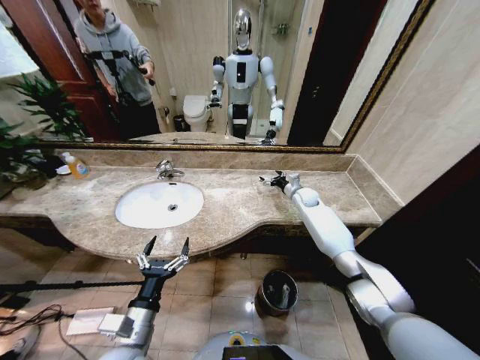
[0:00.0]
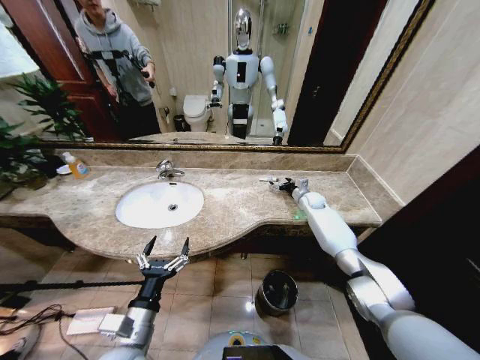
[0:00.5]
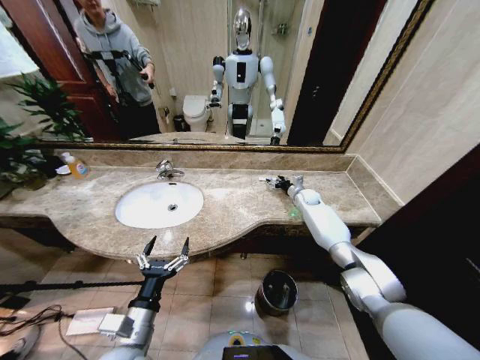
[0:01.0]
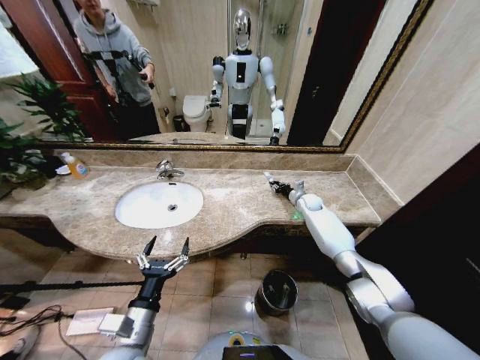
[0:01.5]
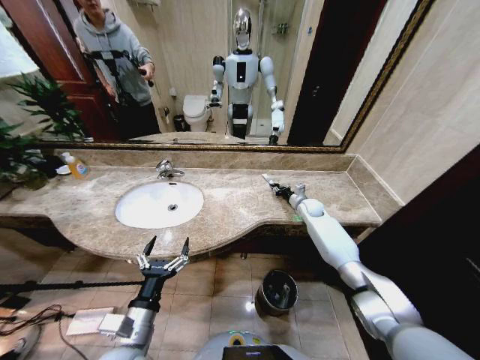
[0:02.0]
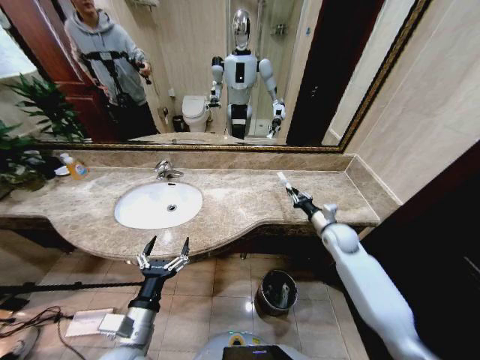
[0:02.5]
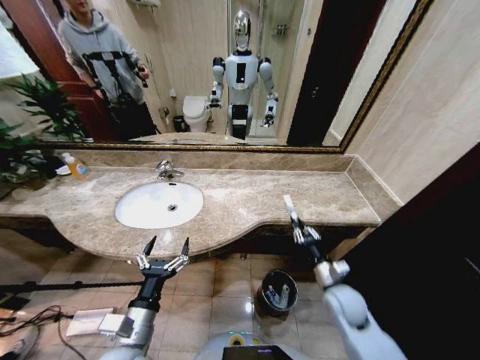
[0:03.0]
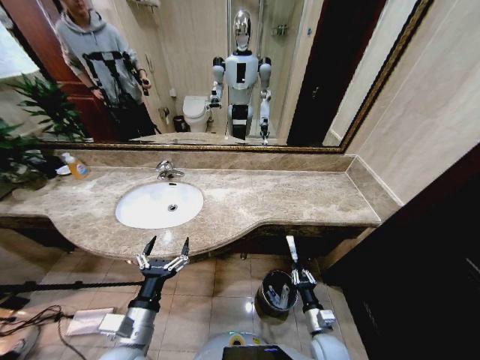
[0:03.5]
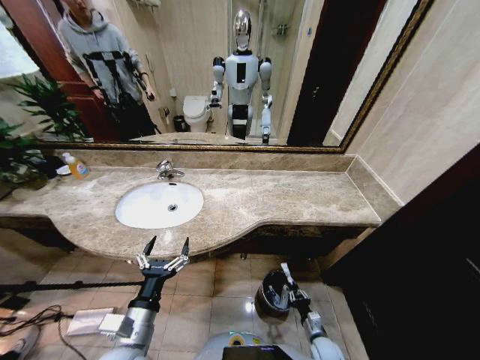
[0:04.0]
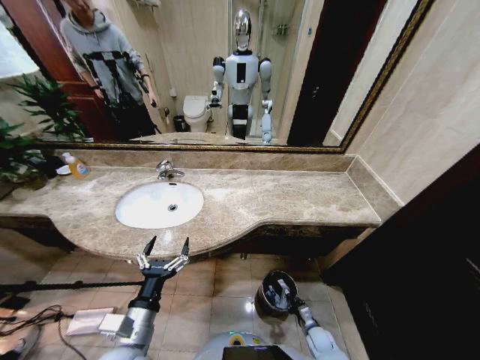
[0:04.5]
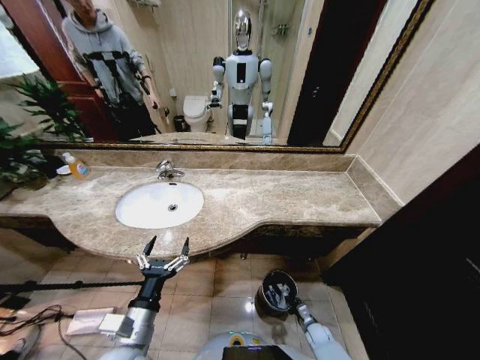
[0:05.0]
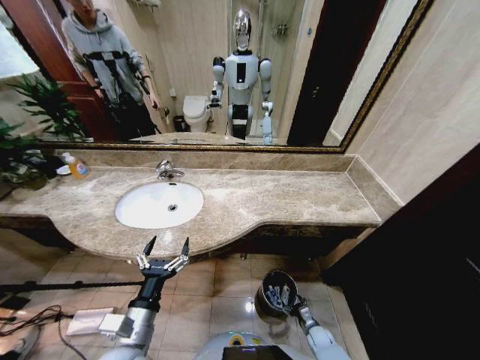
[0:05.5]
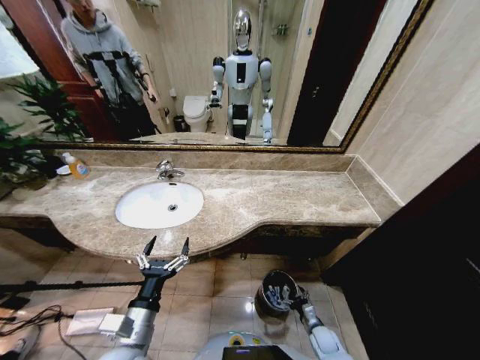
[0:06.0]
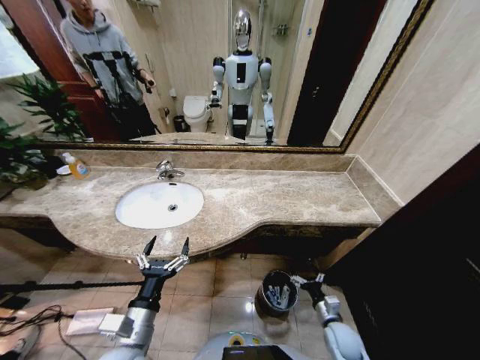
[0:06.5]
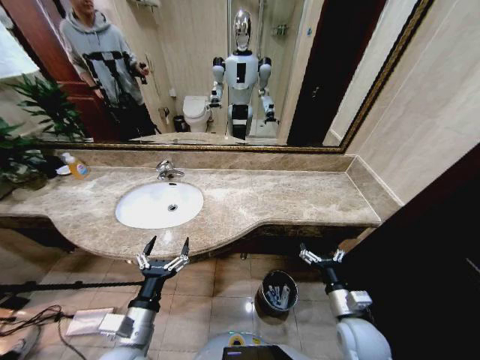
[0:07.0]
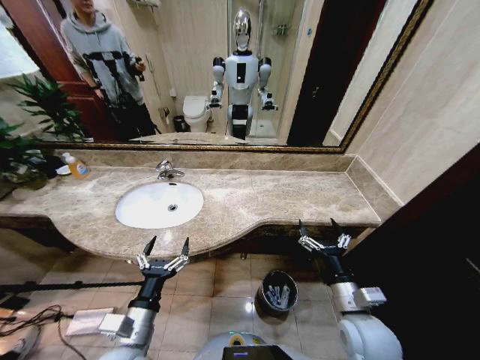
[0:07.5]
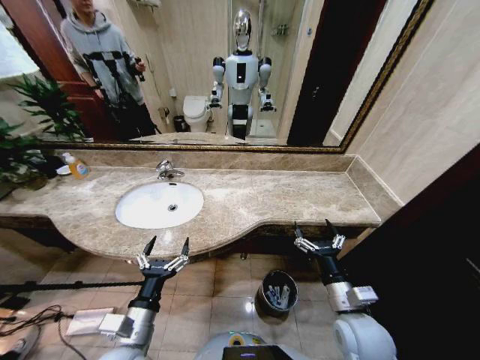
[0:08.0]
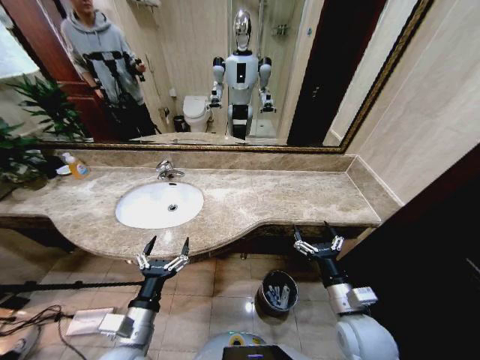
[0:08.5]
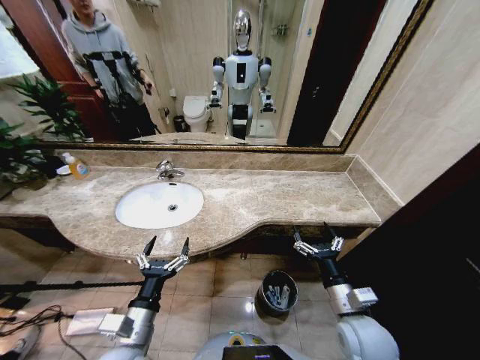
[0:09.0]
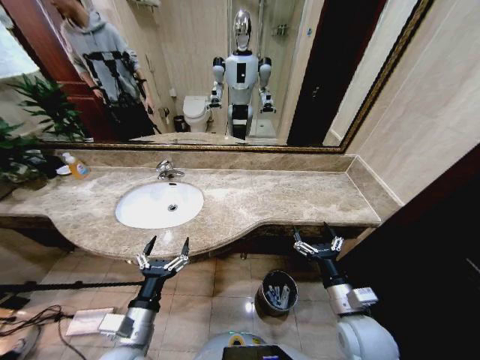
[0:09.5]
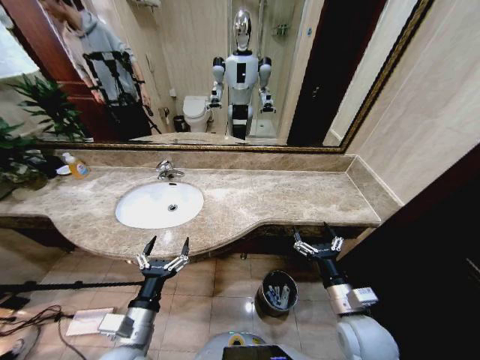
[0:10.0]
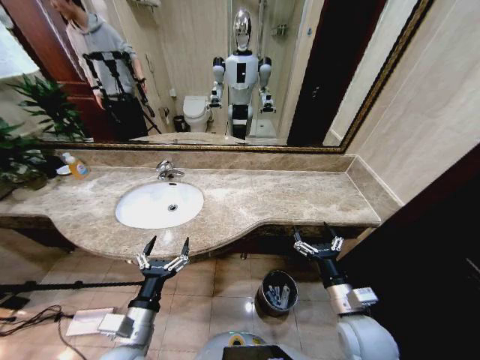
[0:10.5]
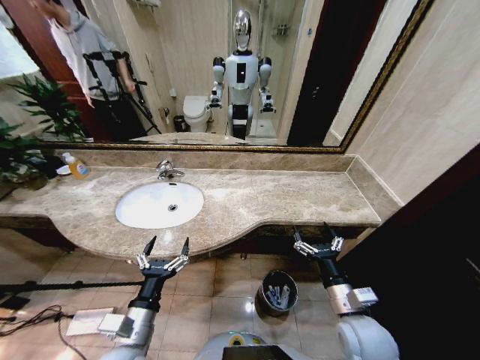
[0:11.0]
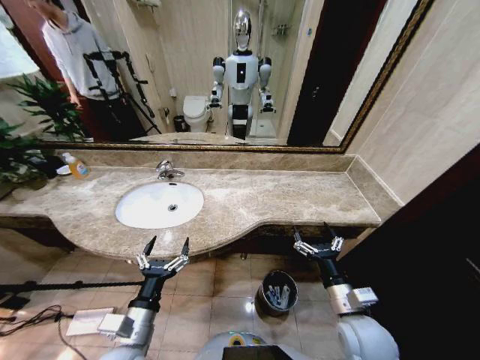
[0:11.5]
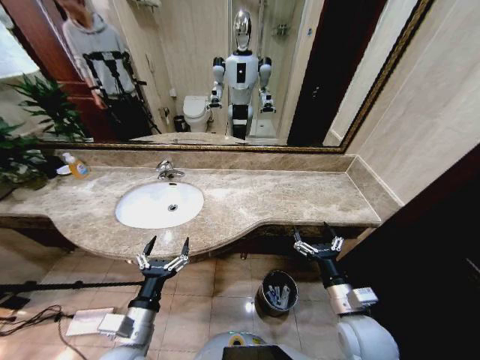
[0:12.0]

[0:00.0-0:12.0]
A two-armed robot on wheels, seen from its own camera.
Task of the whole recording: Pick up the trash from the sink and place it in the trash bin.
0:00.0 to 0:02.0: The right gripper shifts by roughly 5 cm, and closes up.
0:02.0 to 0:04.0: The right gripper travels backward and downward by roughly 50 cm.
0:04.0 to 0:06.0: The right gripper opens up.
0:06.0 to 0:08.0: The right gripper goes roughly 35 cm upward.
0:08.0 to 0:12.0: Neither gripper changes place.

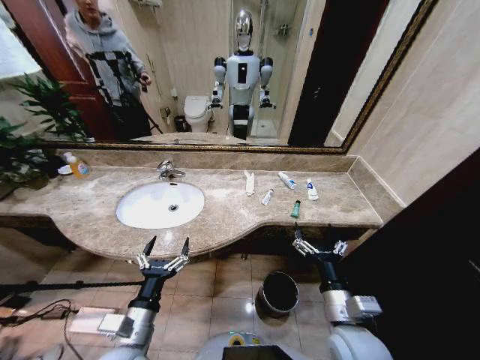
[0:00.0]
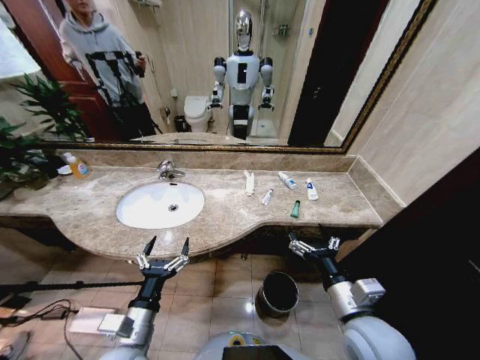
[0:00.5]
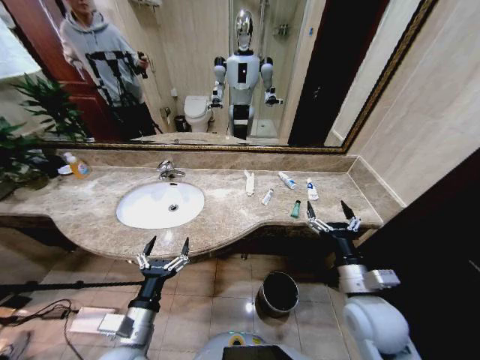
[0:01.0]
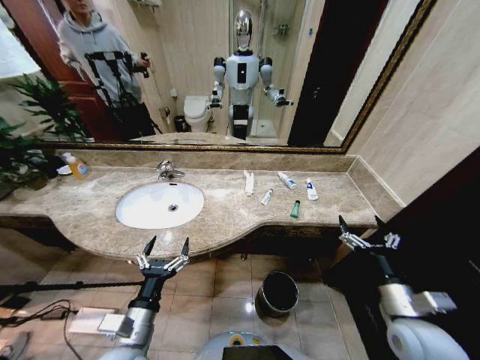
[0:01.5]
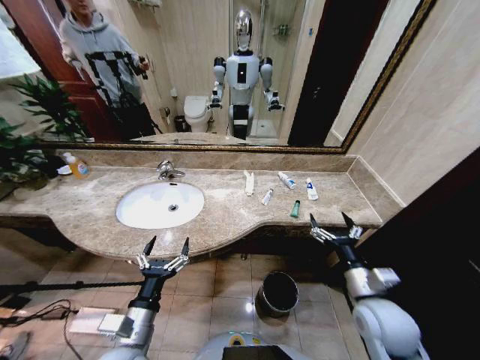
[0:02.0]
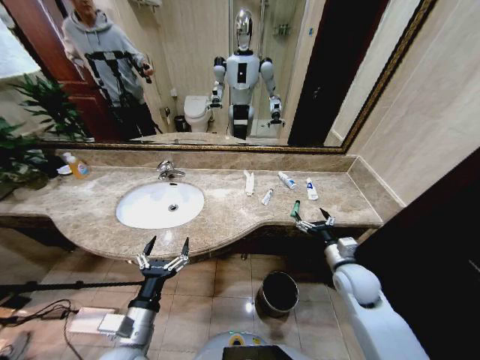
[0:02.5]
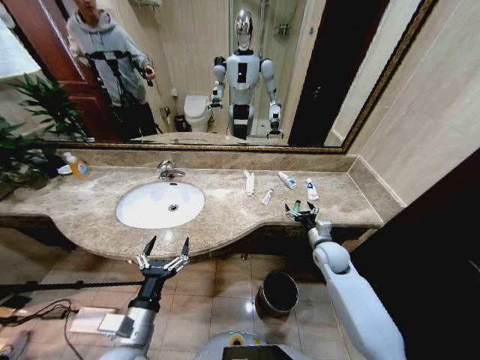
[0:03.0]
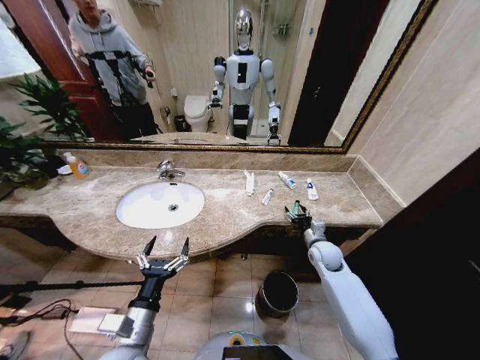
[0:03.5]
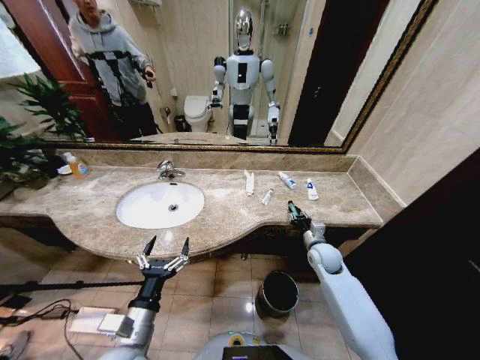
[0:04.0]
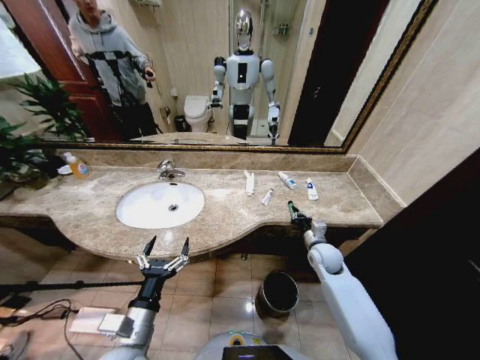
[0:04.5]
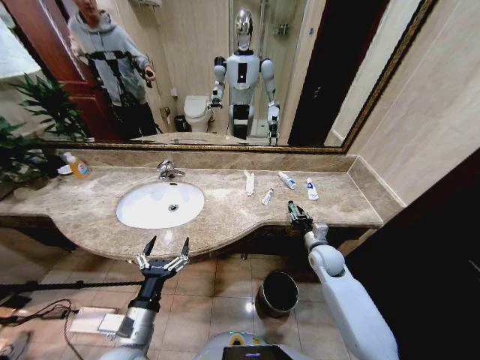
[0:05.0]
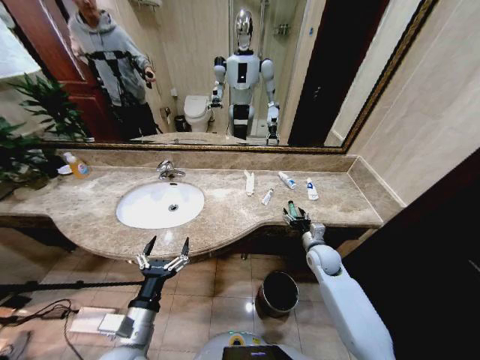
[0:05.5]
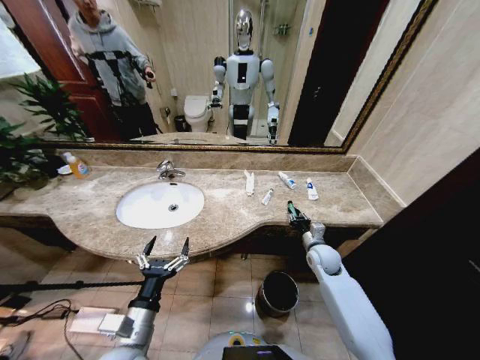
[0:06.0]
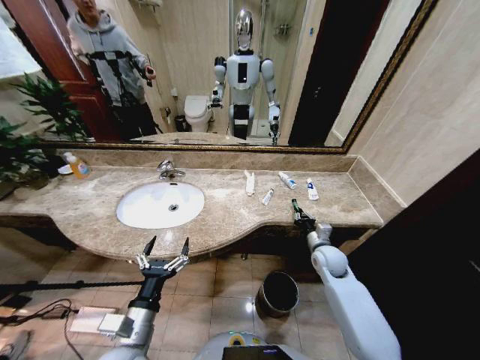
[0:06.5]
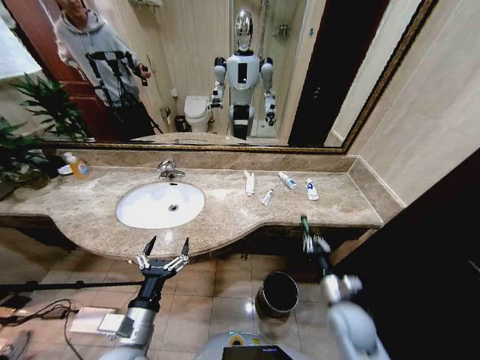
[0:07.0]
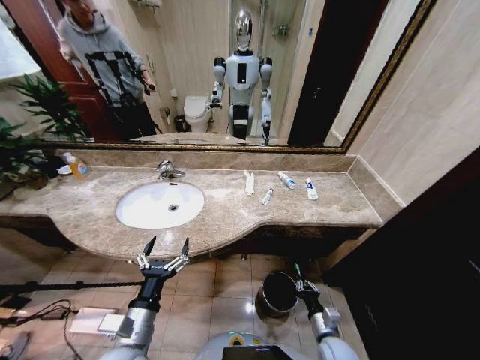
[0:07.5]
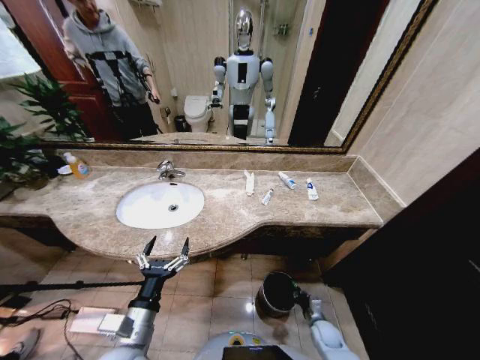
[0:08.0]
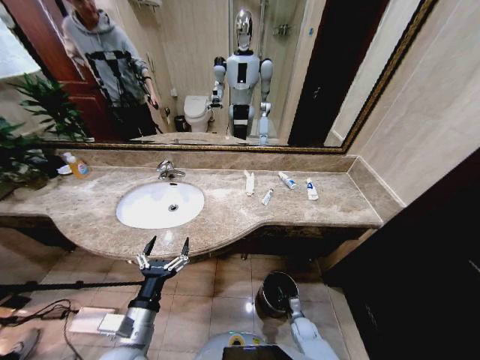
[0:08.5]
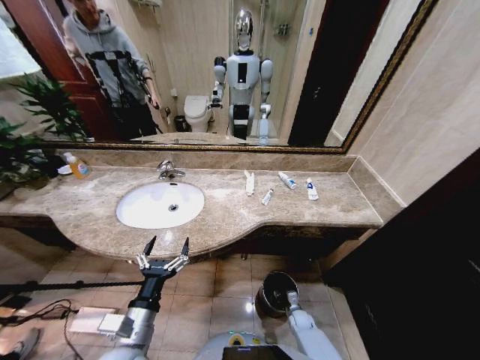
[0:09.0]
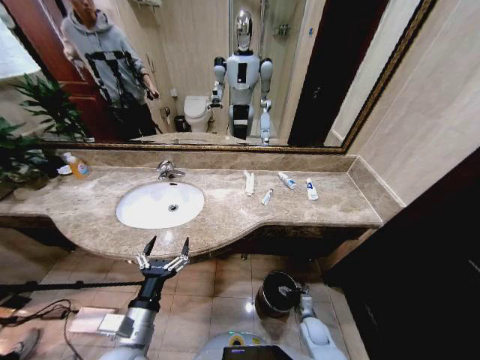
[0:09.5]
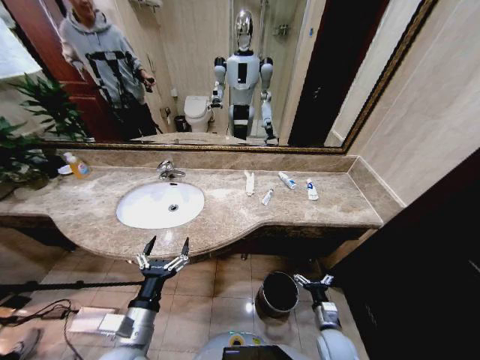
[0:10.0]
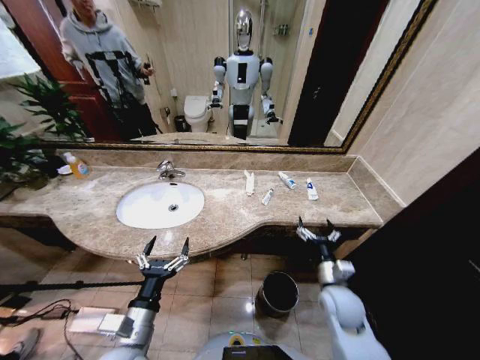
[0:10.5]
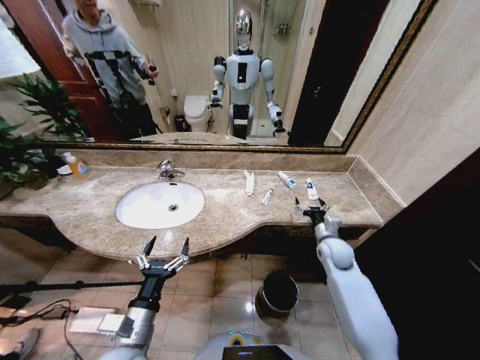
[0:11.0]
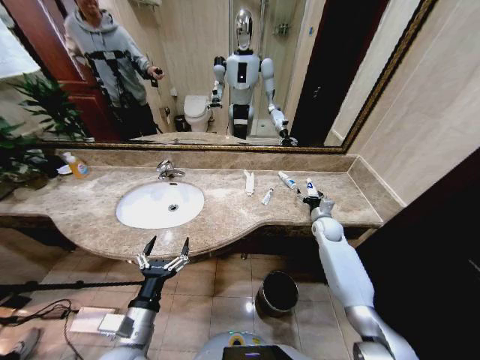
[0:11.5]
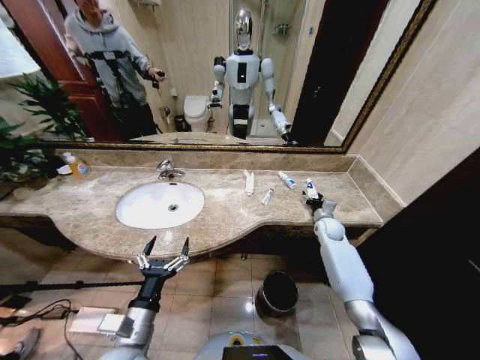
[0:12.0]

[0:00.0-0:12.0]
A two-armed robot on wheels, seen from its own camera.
Task of the whole recording: Pick up the trash from the sink and place it in the trash bin.
0:02.0 to 0:04.0: The right gripper heads forward and downward, covering approximately 20 cm, and closes its fingers.
0:04.0 to 0:06.0: The right gripper opens, then closes again.
0:06.0 to 0:08.0: The right gripper goes approximately 30 cm downward and backward.
0:08.0 to 0:10.0: The right gripper is displaced upward by roughly 10 cm, and opens.
0:10.0 to 0:12.0: The right gripper moves forward and upward, approximately 35 cm.

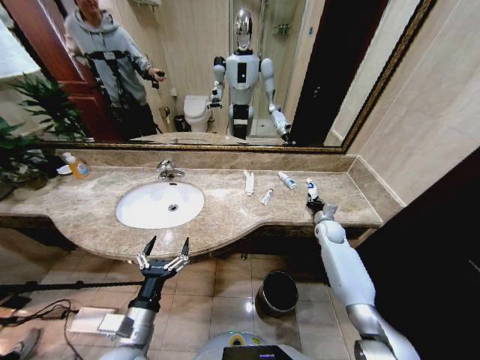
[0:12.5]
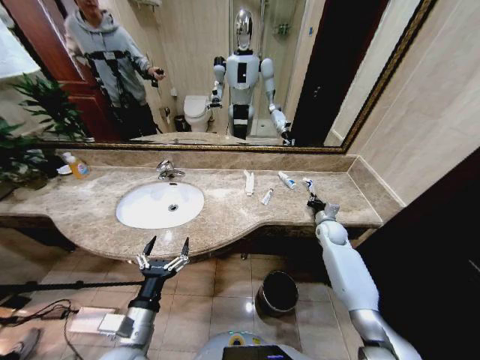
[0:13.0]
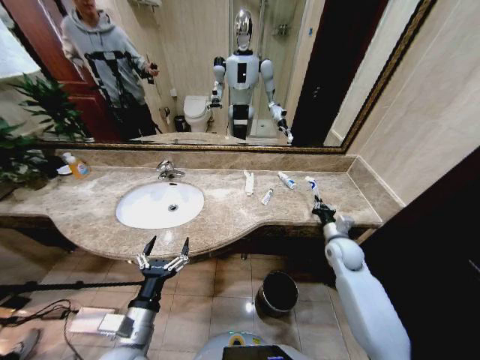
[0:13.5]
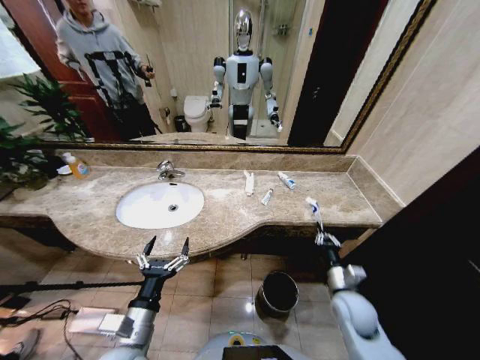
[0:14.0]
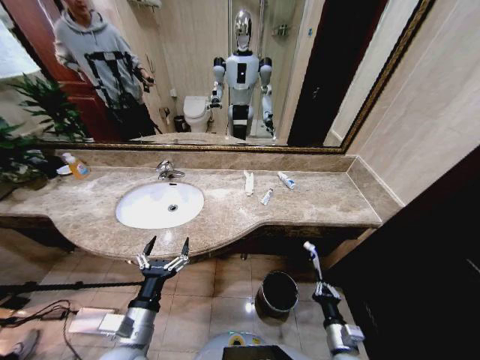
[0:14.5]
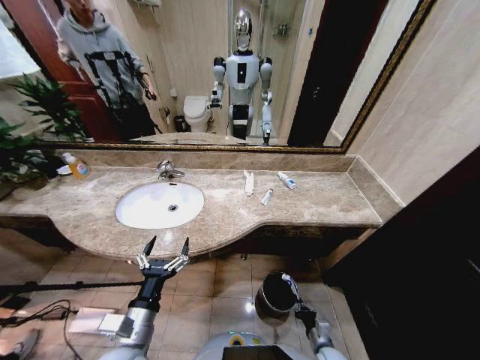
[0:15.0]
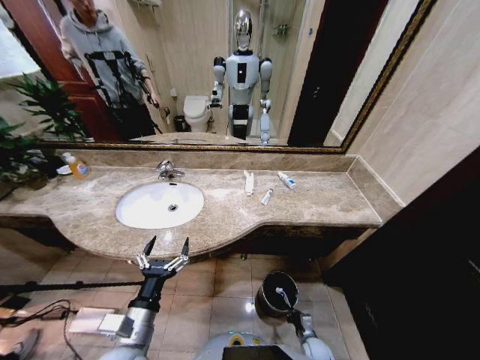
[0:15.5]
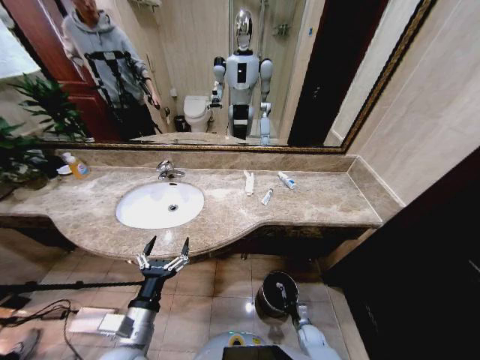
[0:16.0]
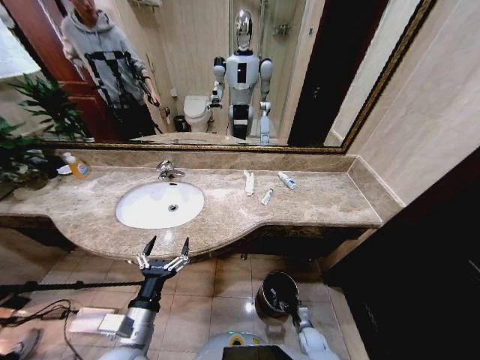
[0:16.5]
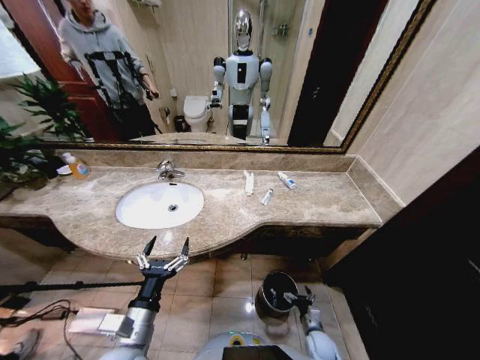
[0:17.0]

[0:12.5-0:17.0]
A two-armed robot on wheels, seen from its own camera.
Task of the whole recording: Pick up the trash from the sink and place it in the trash bin.
0:12.5 to 0:14.5: The right gripper shifts approximately 35 cm backward.
0:14.5 to 0:17.0: The right gripper goes some 15 cm downward and forward, and opens its fingers.
